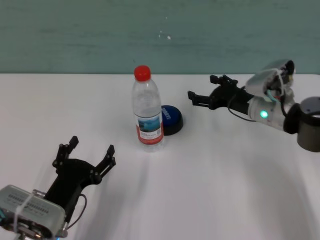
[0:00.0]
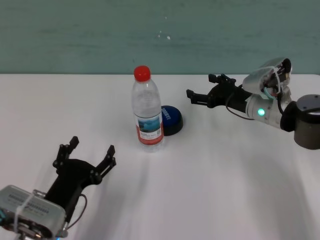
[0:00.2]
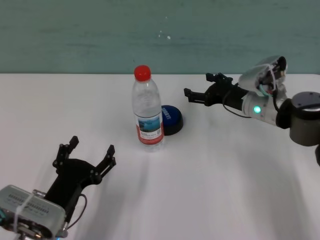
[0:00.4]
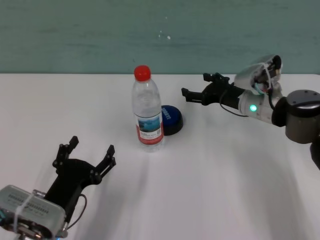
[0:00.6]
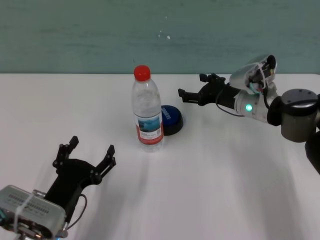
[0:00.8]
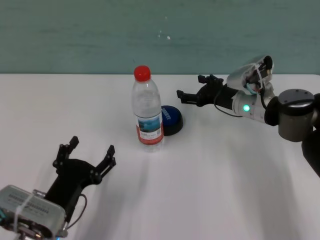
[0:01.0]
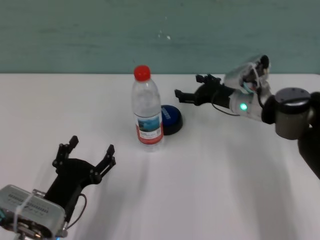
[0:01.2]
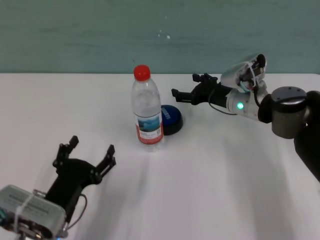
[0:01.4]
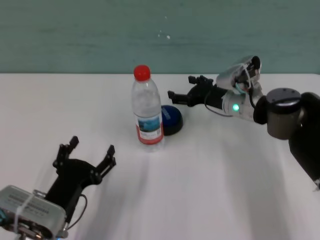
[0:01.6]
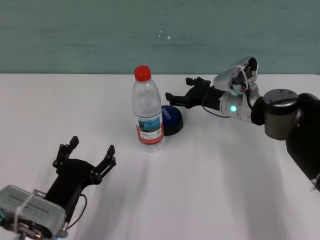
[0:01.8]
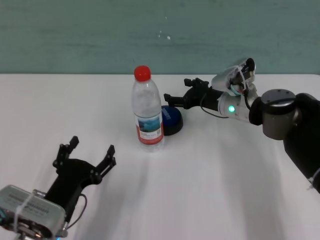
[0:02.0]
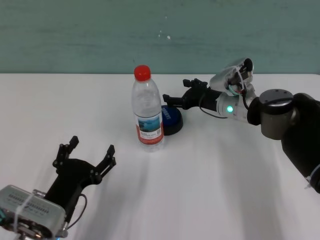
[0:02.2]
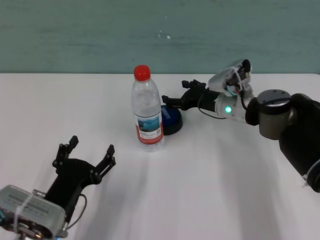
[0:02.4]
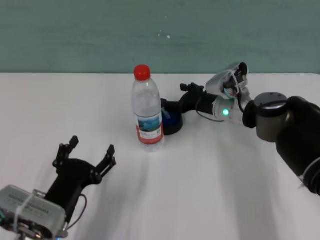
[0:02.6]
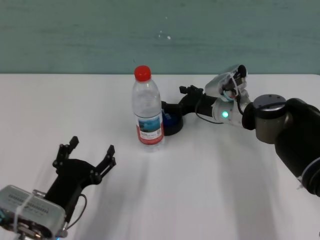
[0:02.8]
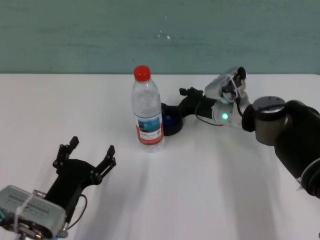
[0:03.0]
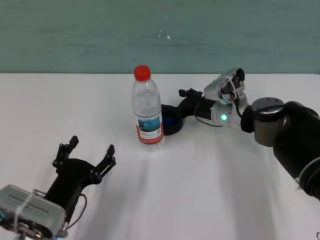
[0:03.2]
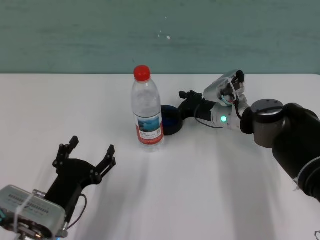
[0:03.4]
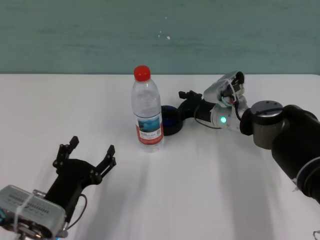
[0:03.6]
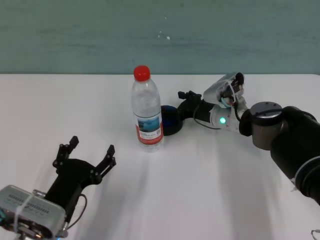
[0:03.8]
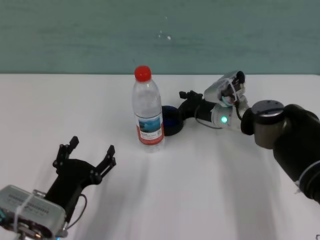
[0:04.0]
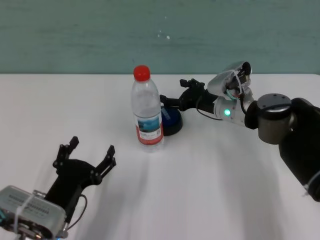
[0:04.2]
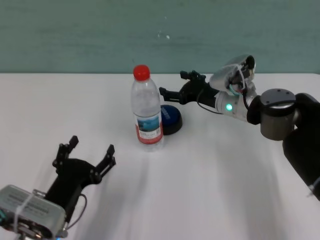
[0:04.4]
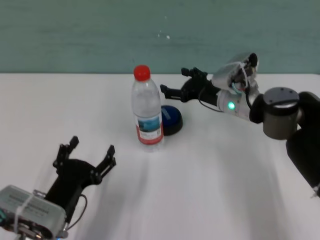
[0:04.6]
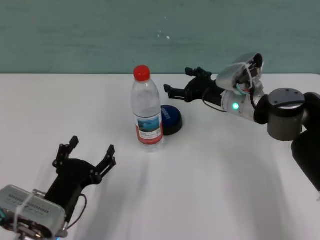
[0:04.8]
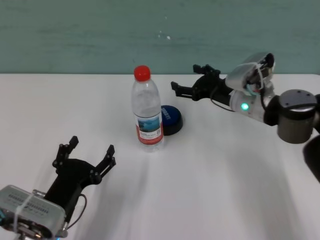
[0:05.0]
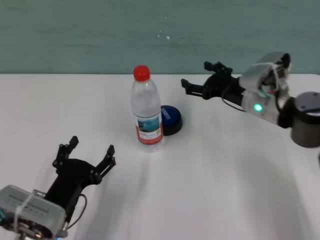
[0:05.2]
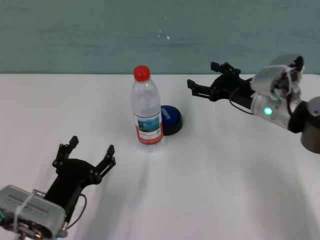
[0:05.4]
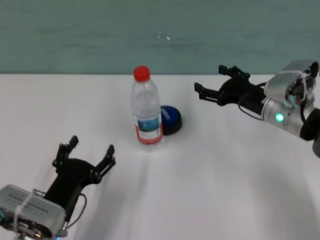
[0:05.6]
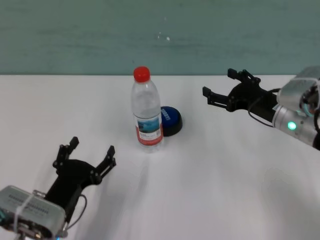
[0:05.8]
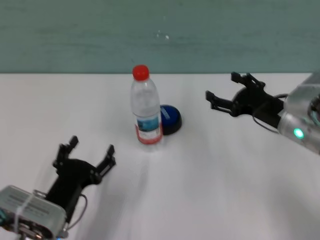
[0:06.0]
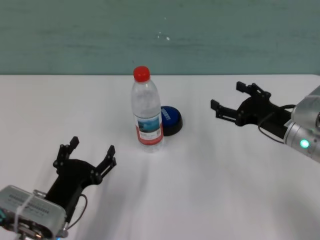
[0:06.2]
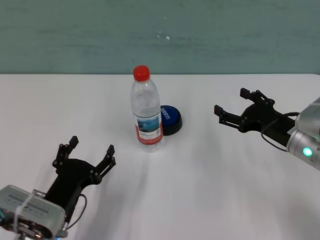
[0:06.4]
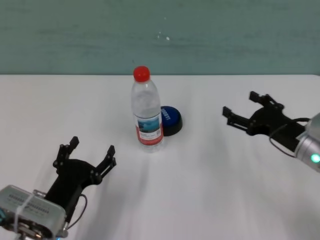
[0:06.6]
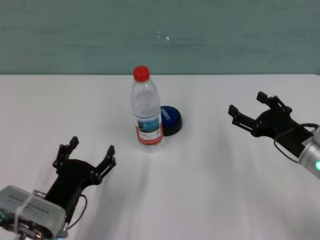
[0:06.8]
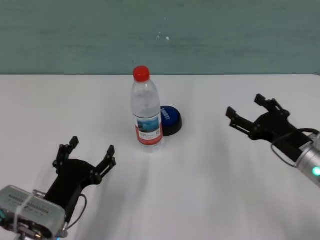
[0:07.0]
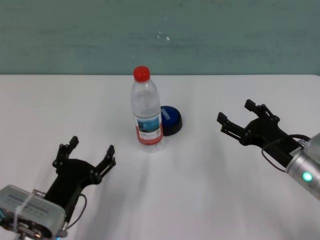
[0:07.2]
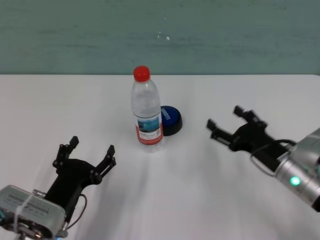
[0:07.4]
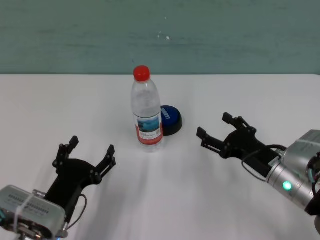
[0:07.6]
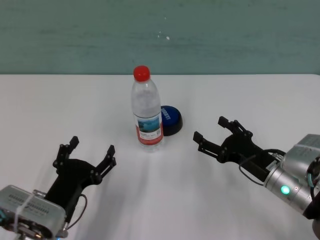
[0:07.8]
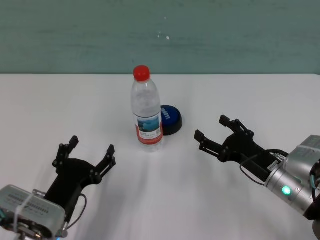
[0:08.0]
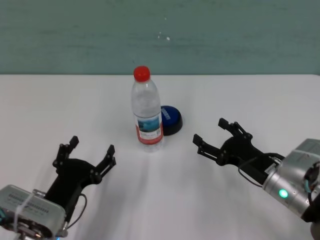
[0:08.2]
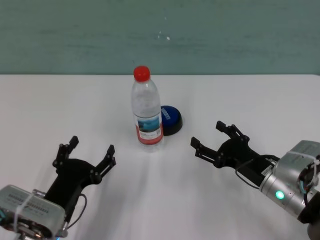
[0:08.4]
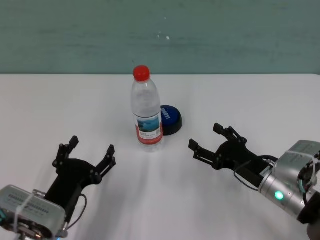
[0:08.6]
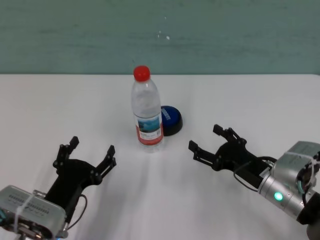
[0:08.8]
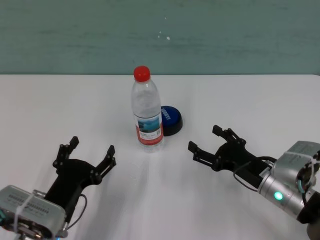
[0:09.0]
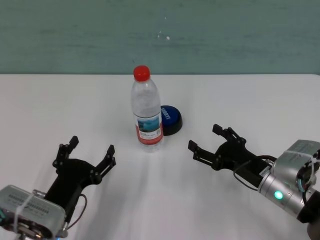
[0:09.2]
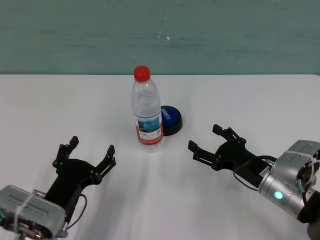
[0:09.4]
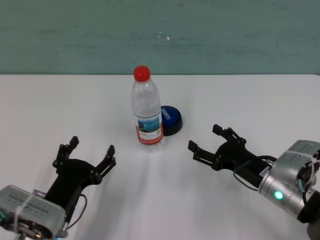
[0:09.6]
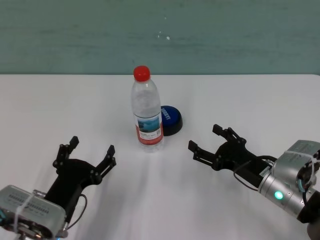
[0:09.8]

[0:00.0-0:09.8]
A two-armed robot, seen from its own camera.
Task of the whole recording: after avoiding the water bottle on the table, press the button.
Step, 0:00.0 to 0:04.0: Press the button blocked by the bottle with right gripper.

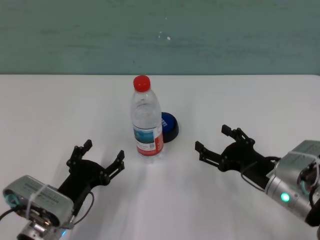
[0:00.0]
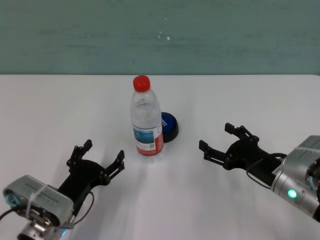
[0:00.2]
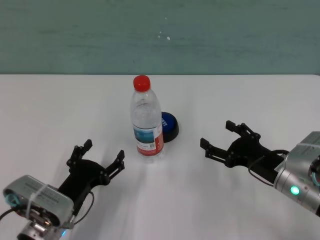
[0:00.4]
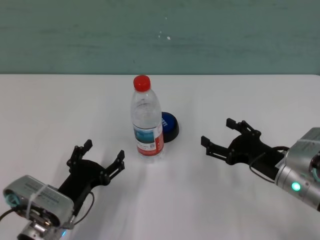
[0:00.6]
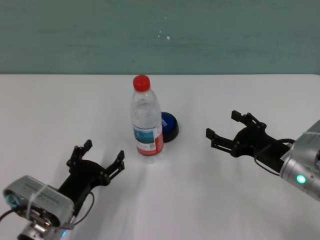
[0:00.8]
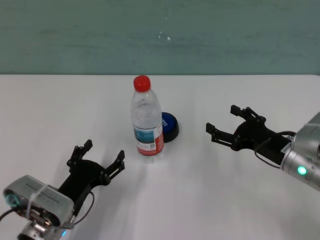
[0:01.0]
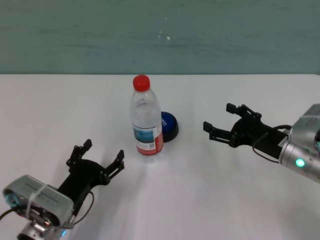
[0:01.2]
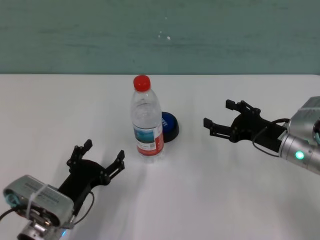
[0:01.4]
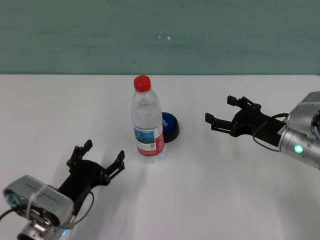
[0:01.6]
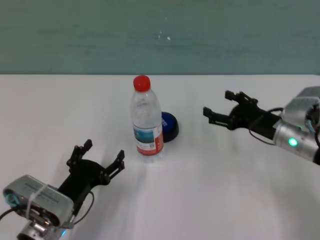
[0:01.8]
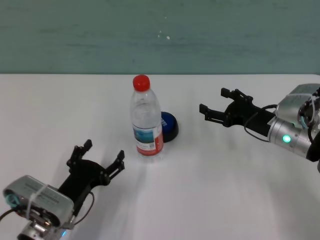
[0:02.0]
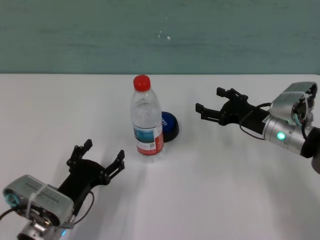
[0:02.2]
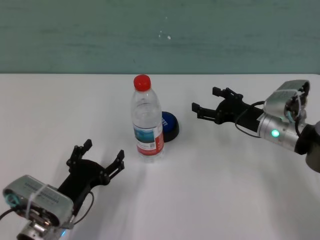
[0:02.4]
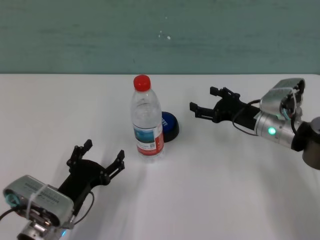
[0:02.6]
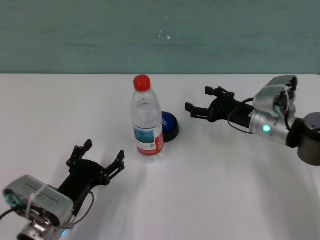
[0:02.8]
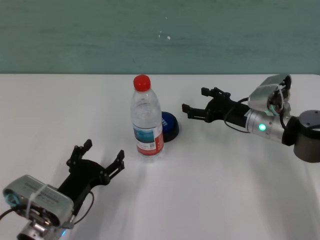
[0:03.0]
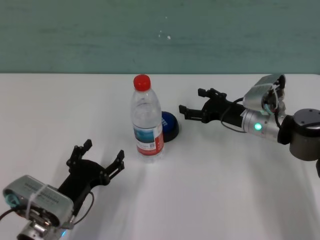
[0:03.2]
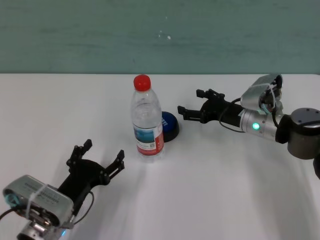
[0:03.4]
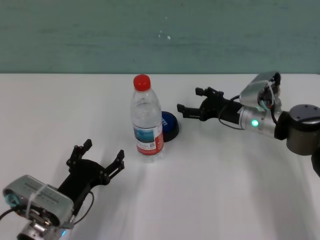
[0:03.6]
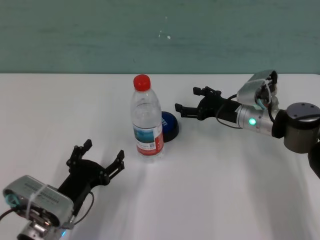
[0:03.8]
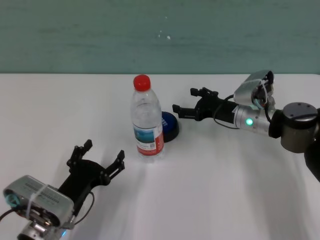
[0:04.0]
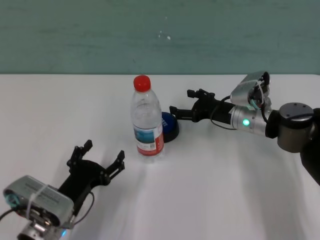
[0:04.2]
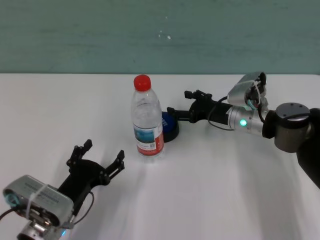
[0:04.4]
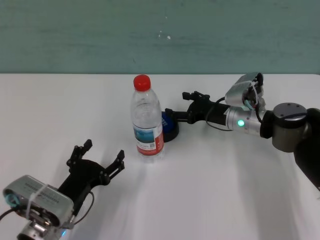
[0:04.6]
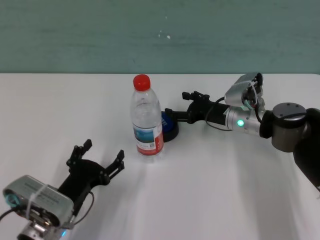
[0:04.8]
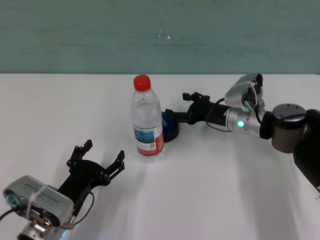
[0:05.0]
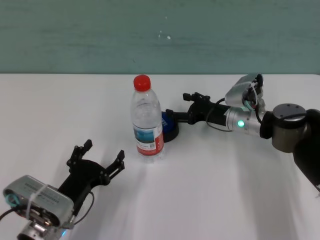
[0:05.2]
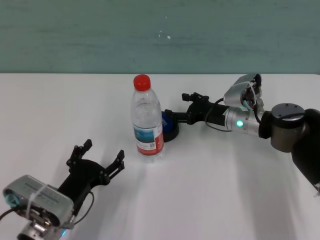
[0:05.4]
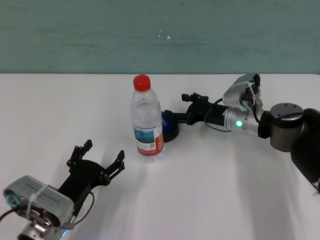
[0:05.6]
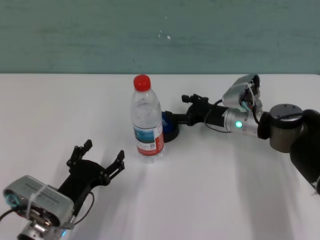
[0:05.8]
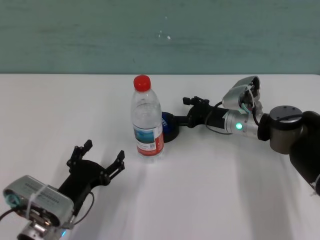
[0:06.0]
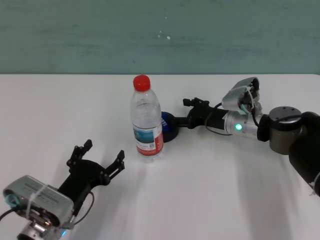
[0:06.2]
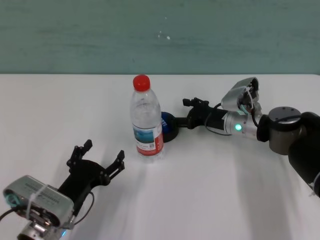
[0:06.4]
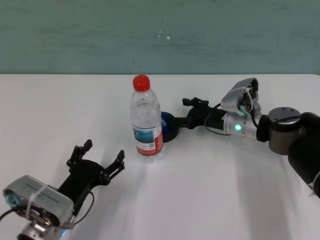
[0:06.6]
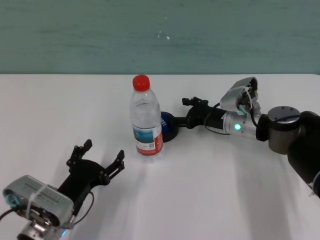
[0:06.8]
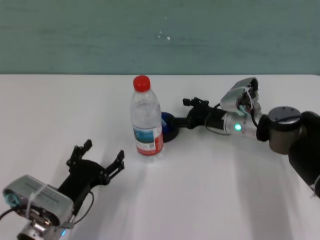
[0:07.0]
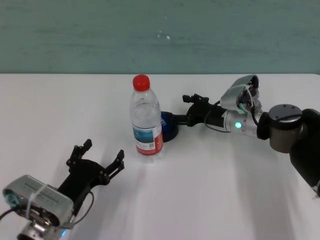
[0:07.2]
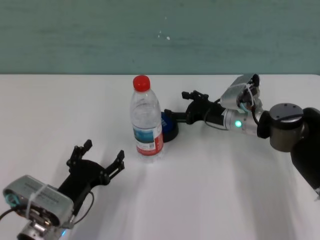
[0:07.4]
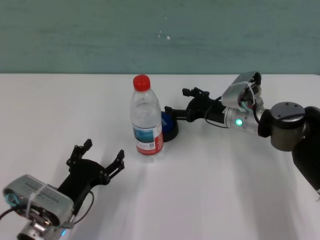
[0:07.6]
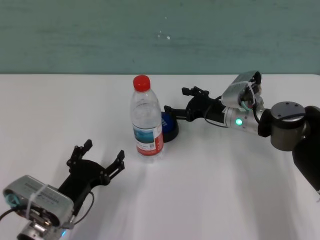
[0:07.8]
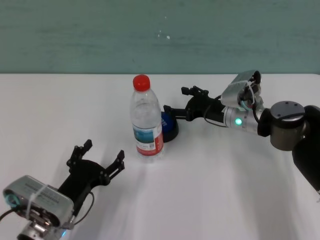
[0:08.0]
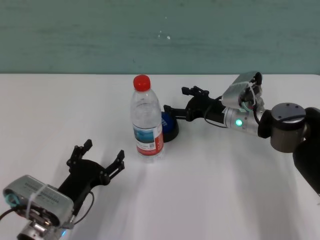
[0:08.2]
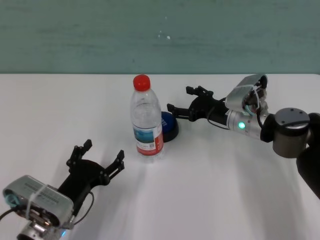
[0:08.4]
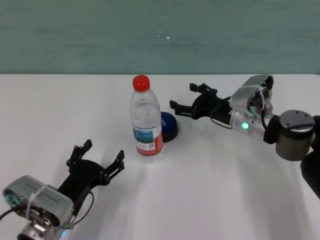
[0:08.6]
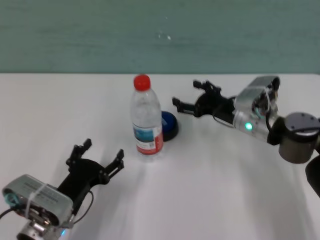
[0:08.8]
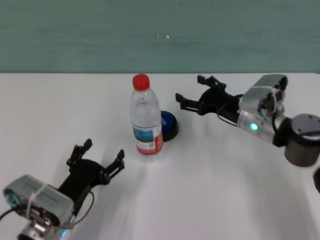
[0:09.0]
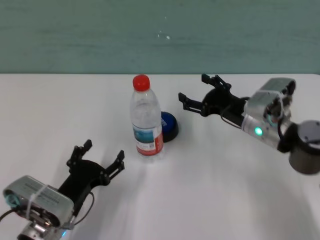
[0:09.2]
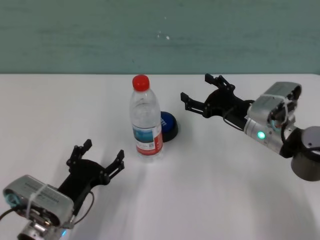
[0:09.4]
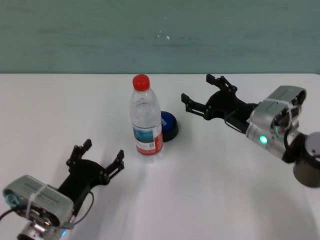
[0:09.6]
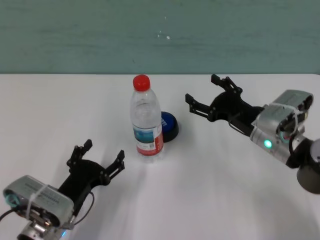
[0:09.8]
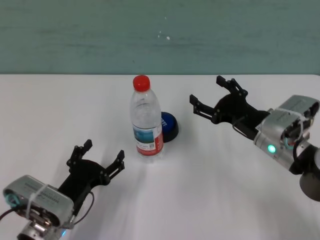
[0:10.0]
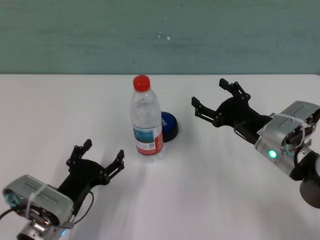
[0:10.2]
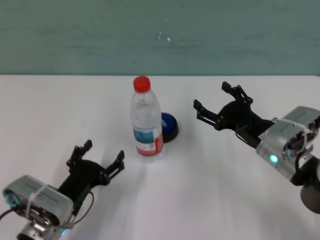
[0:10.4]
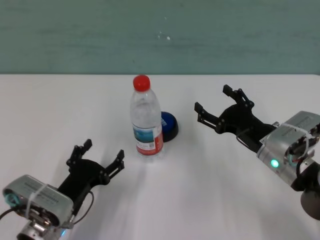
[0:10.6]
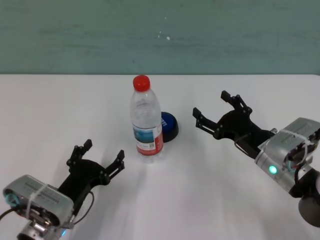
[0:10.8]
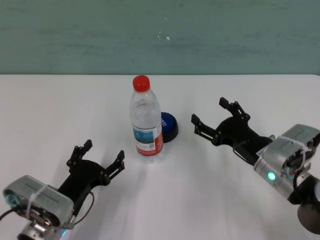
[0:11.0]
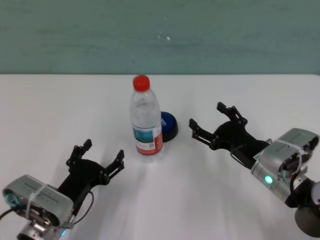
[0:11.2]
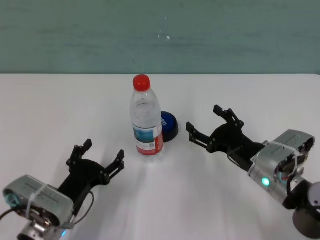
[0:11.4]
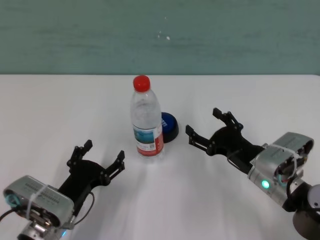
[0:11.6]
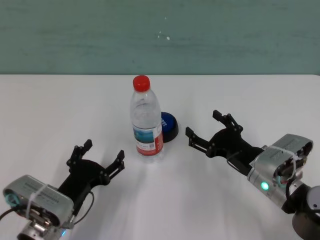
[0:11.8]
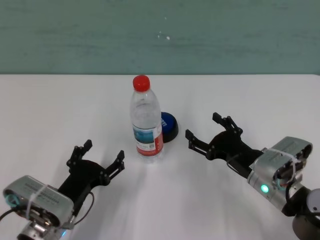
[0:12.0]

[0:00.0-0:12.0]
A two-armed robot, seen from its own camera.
Task of the whole recording: after avoiding the water bottle on the table, press the button.
Step, 0:00.0 to 0:07.0: Press the button blocked by the bottle with right gripper.
